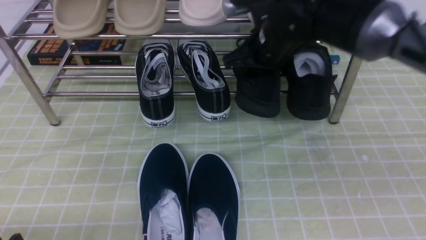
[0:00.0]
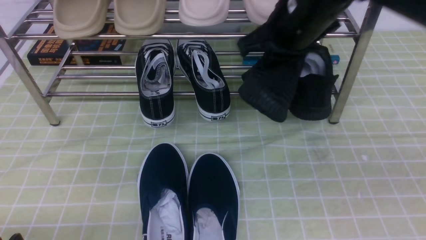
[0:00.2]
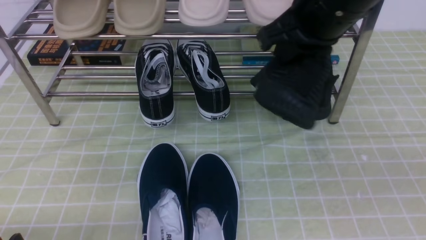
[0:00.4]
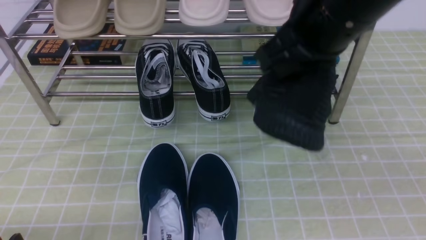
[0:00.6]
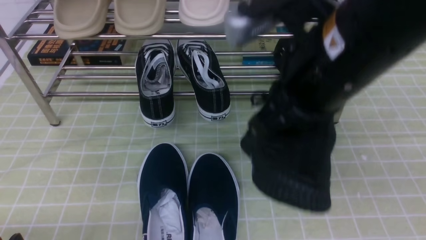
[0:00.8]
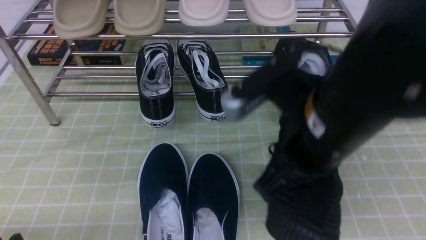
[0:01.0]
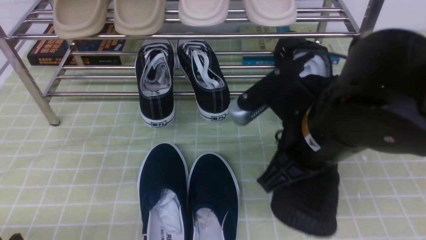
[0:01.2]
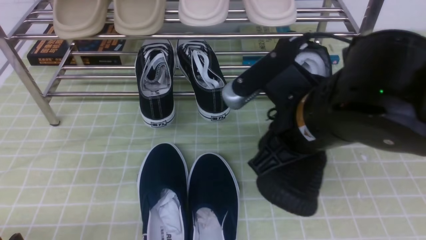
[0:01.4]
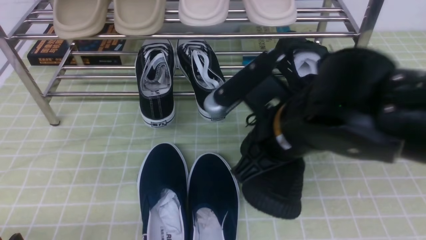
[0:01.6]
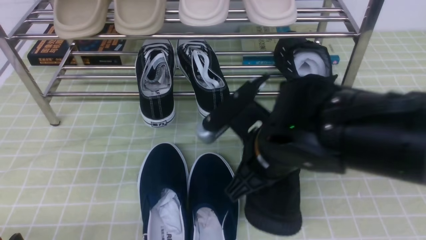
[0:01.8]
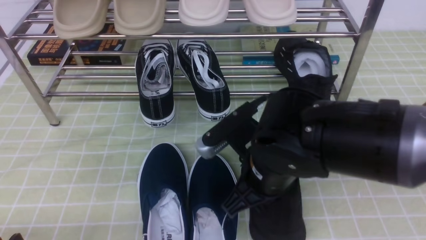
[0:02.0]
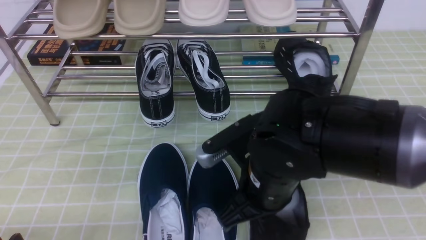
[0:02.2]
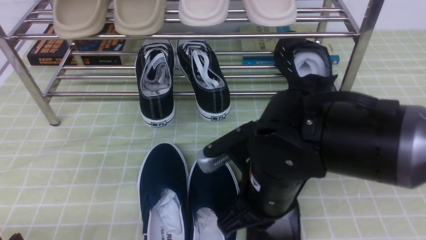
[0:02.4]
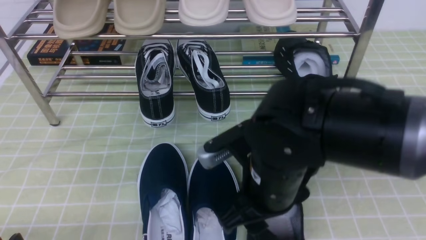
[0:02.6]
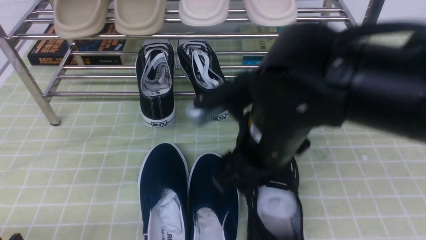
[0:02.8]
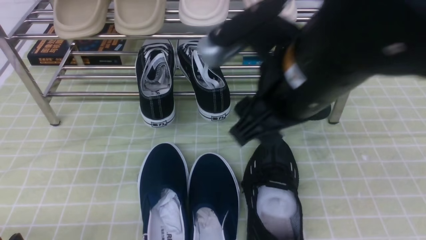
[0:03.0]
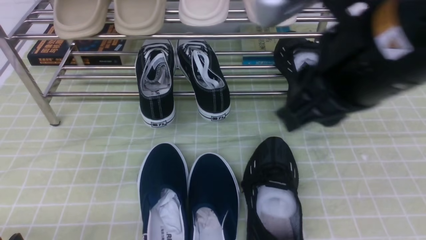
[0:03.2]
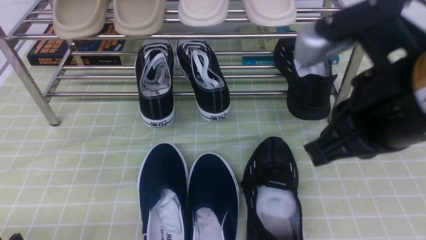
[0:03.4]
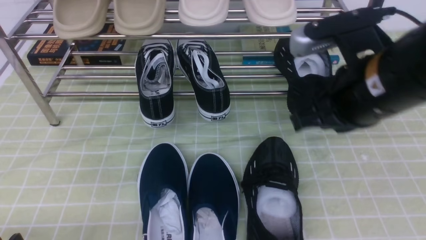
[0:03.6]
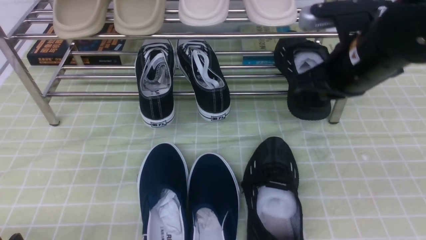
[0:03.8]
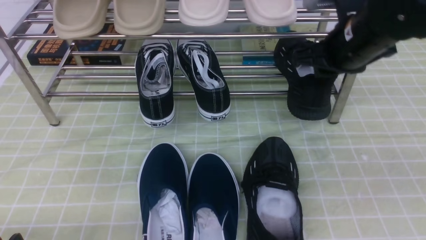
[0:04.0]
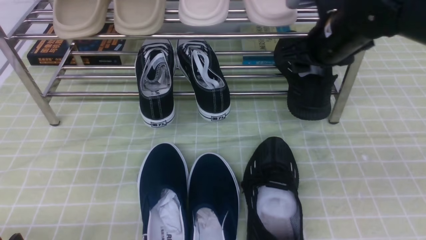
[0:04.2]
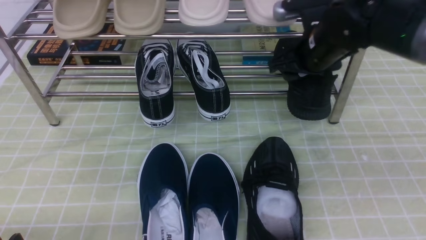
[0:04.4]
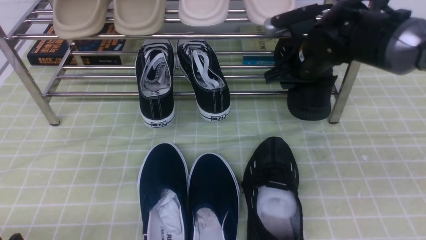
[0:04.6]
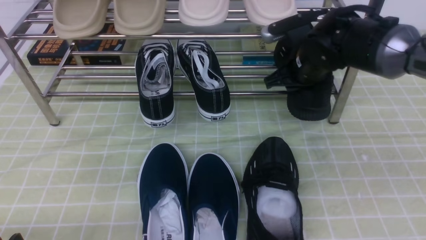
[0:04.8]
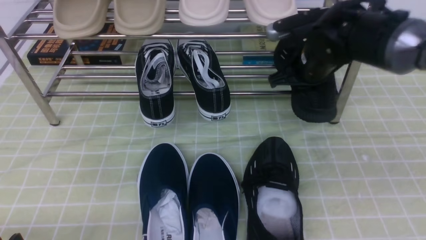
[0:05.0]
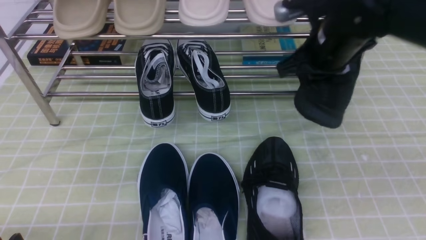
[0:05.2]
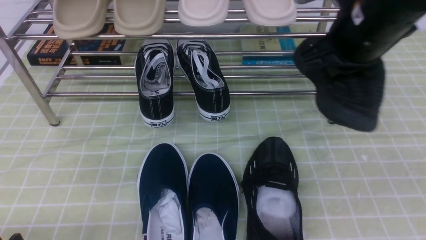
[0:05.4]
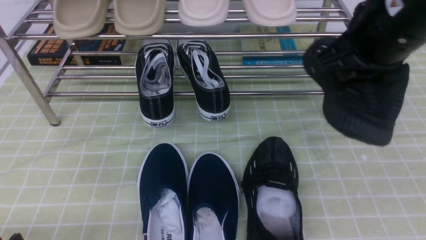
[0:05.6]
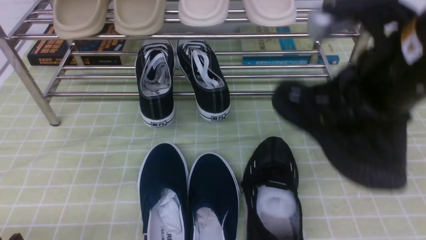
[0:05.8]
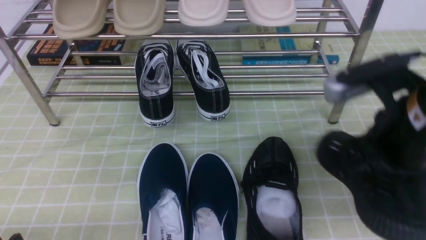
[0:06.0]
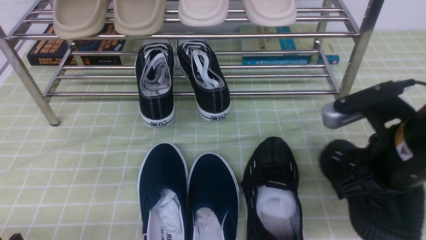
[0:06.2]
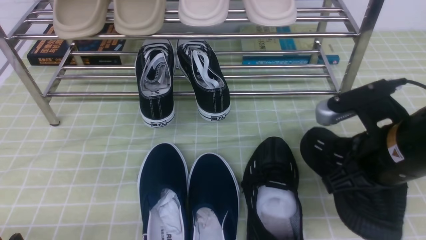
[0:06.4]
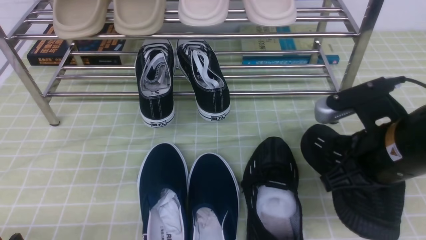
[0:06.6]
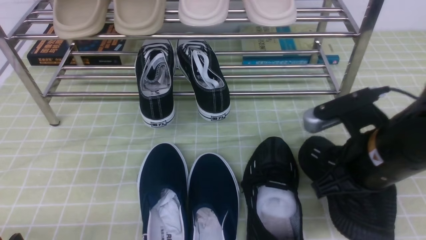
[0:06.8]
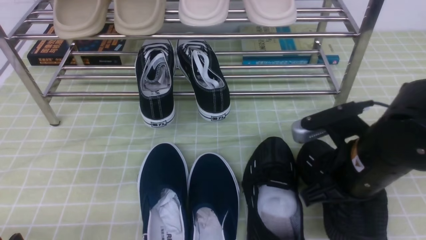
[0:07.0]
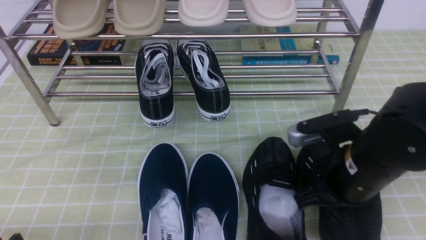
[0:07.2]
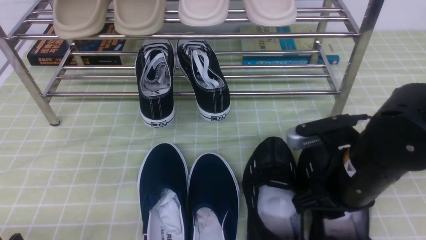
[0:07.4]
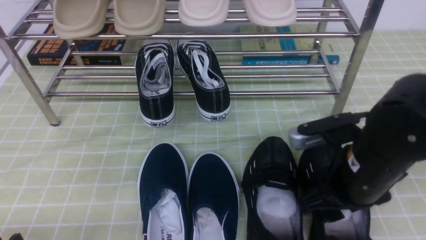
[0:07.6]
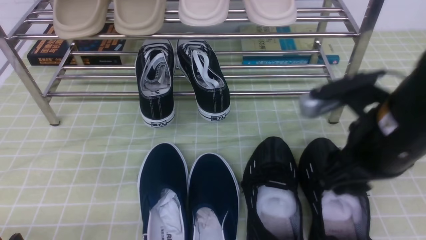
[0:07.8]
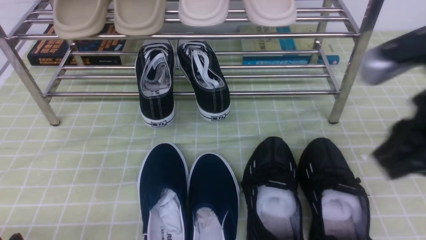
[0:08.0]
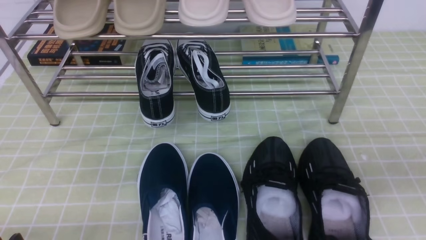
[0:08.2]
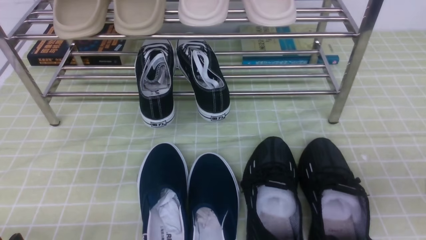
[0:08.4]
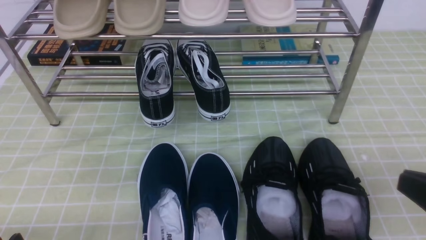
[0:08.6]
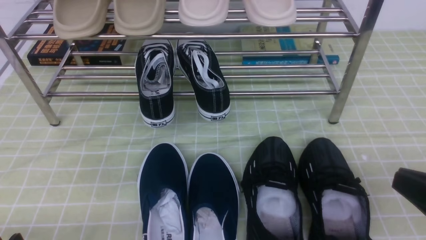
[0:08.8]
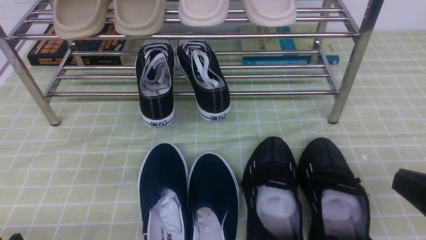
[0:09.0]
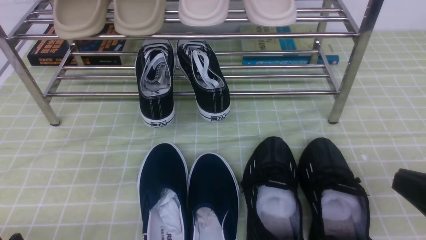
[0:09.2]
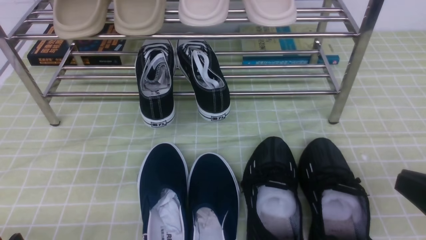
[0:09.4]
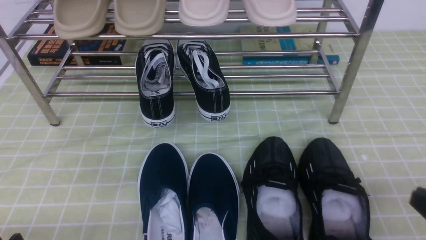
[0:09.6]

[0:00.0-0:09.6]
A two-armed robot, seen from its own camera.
Step, 0:00.0 to 0:02.6: use the right arm to take out the clamped shoe from the shoe rack and put it down.
Step, 0:02.8 to 0:05.0: use the right arm to clamp a shoe on the right side of the shoe rack.
Step, 0:05.2 to 0:07.8: use the right arm to take out the clamped shoe from the shoe rack and put it down.
0:00.0 to 0:01.6: The right gripper shifts about 15 cm backward.
0:01.6 to 0:03.2: The right gripper travels upward by some 10 cm, and opens.
0:03.2 to 0:04.8: The right gripper moves forward and downward, roughly 25 cm, and closes, then reopens.
0:04.8 to 0:06.4: The right gripper moves backward, approximately 20 cm, and closes up.
0:06.4 to 0:08.0: The right gripper is displaced upward and backward by approximately 10 cm, and opens and closes again.
0:08.0 to 0:09.6: The right gripper heads downward, to the right and backward, covering roughly 15 cm.

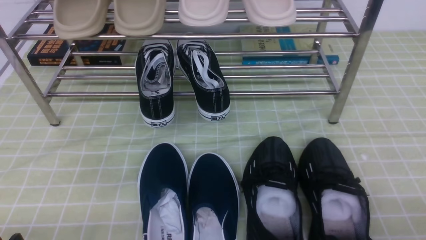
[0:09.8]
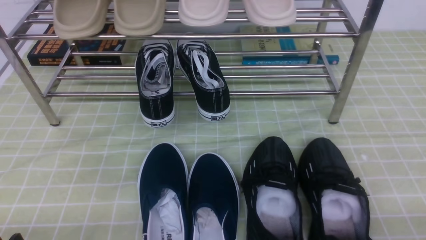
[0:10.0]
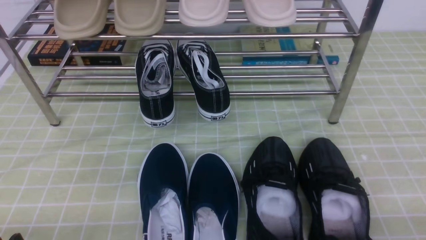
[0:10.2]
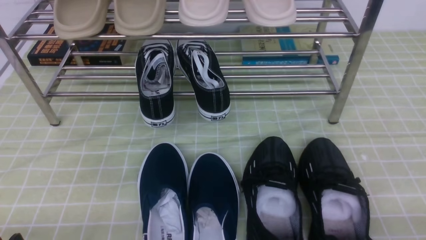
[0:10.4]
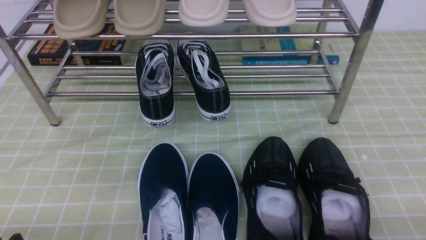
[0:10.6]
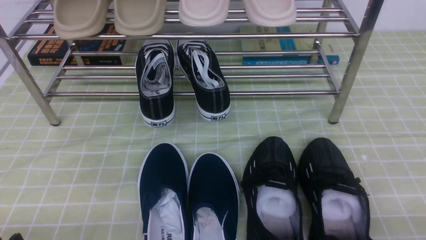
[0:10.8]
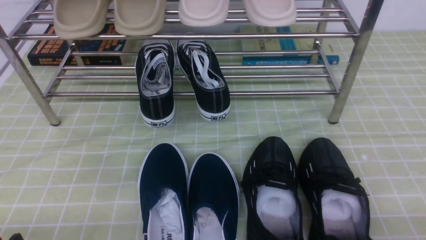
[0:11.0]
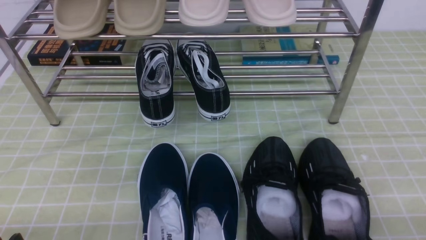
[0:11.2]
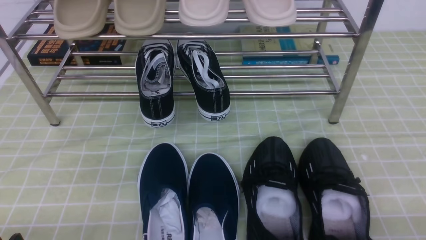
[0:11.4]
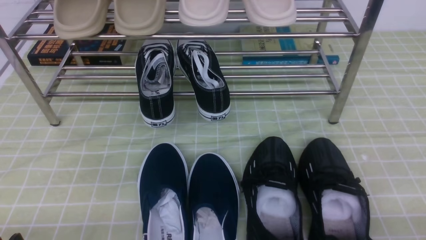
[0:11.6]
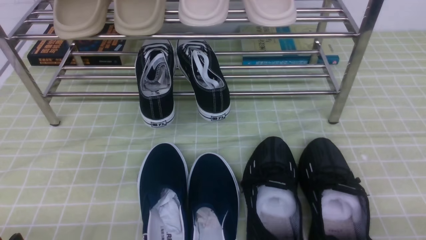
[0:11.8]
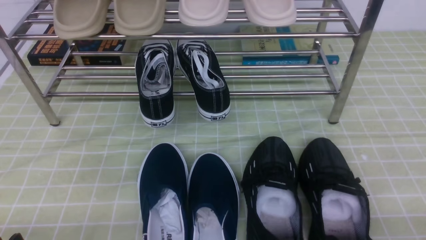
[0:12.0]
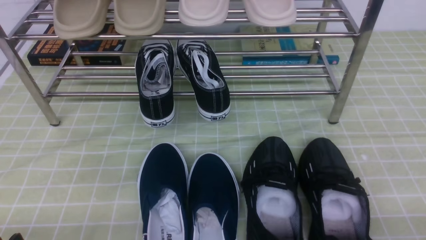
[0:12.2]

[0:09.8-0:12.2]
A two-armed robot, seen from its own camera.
0:11.0 to 0:12.2: Both grippers stay put.

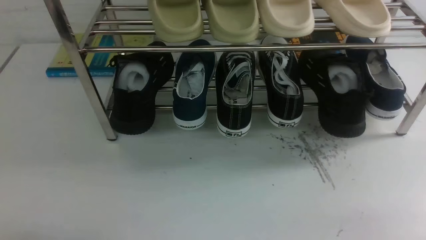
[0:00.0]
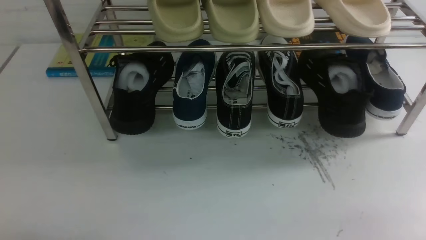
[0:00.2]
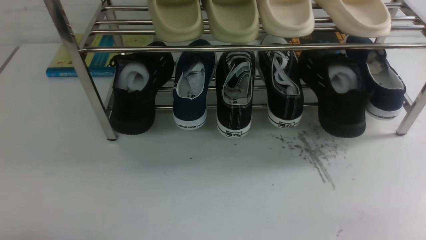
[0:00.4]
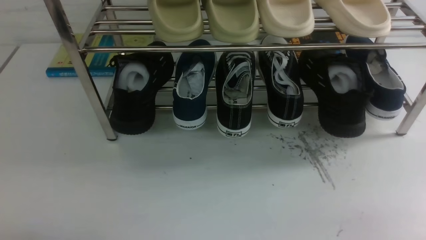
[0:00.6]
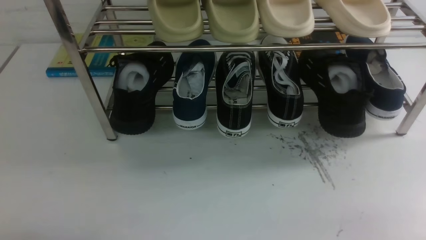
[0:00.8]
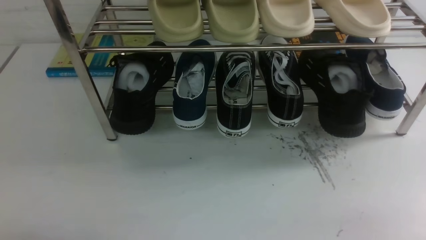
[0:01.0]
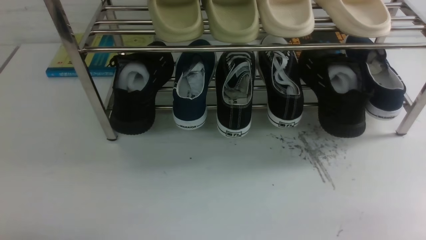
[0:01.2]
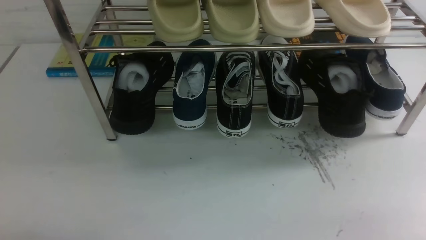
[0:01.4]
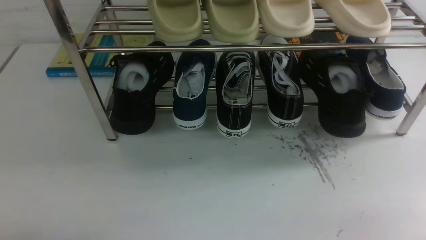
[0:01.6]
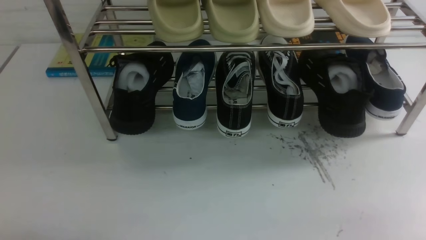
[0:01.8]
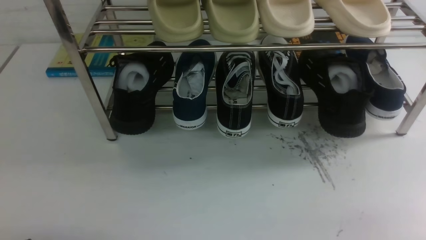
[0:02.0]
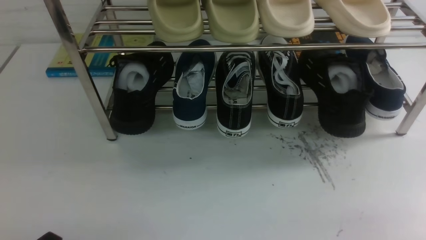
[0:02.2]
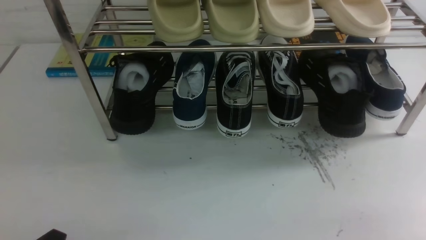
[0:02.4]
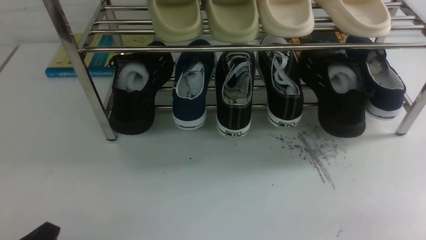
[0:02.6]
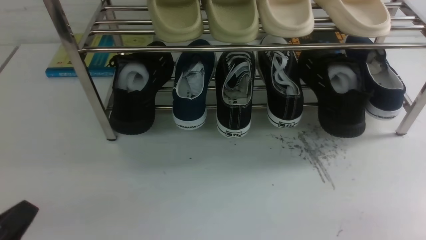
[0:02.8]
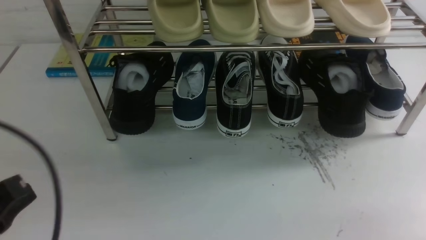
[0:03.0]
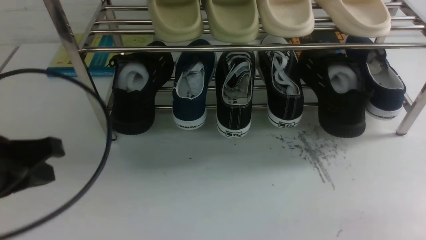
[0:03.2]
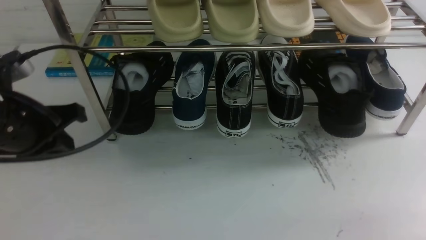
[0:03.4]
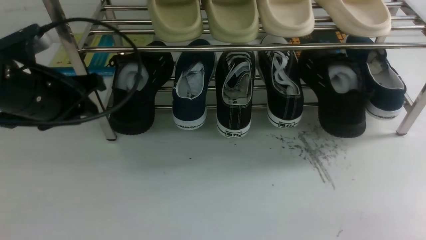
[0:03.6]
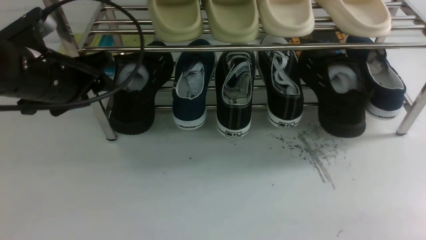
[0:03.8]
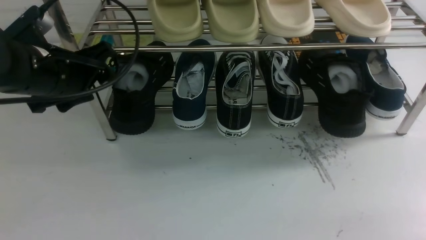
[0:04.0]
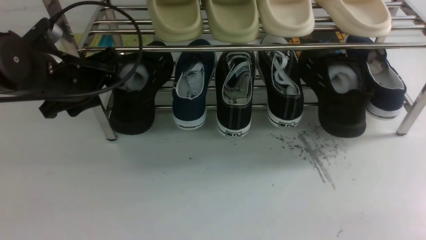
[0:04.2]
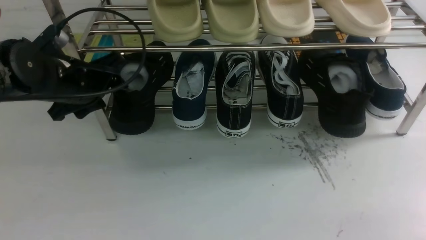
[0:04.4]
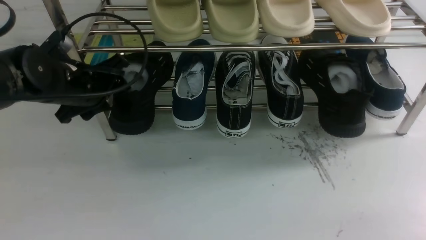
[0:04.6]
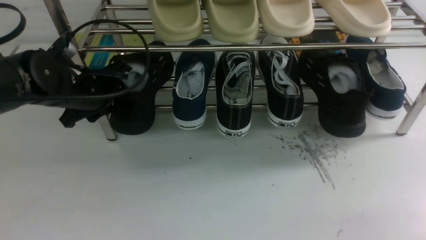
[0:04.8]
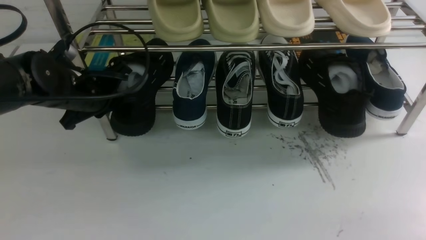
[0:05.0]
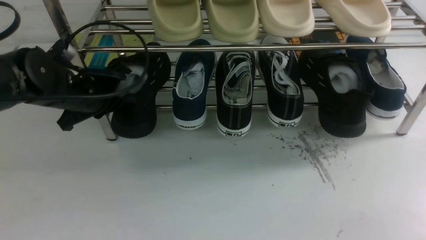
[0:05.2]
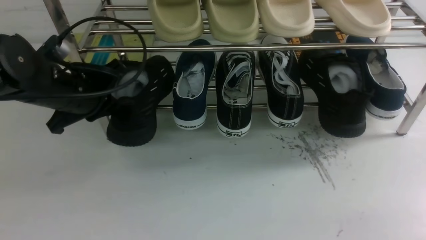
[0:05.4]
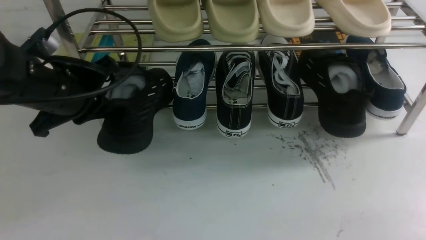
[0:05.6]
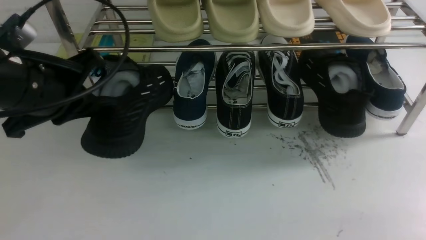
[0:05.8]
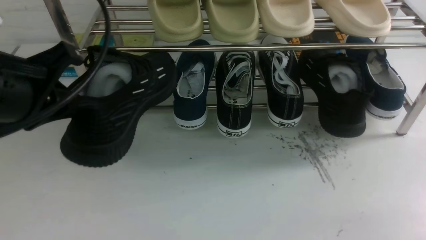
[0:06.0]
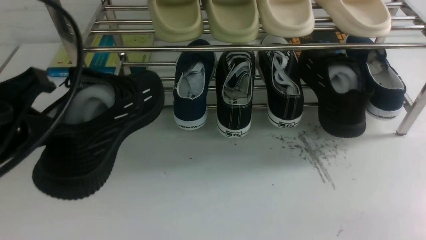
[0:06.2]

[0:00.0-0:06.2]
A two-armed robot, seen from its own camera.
Step, 0:00.0 to 0:05.6: use the left arm to clamp a shoe on the left side of the shoe rack.
0:00.0 to 0:01.6: Neither gripper changes place.
0:01.6 to 0:03.2: The left gripper heads upward and forward, covering some 20 cm, and closes its fingers.
0:03.2 to 0:04.6: The left gripper heads forward, covering about 15 cm, and opens up.
0:04.6 to 0:06.2: The left gripper moves backward and upward, roughly 20 cm, and closes its fingers.
